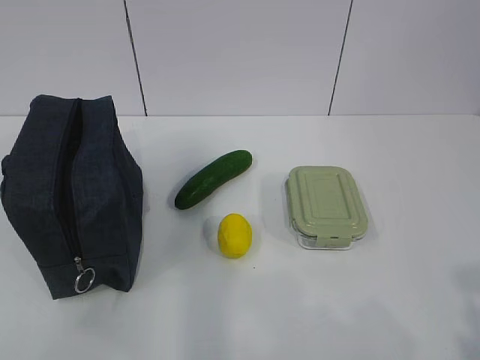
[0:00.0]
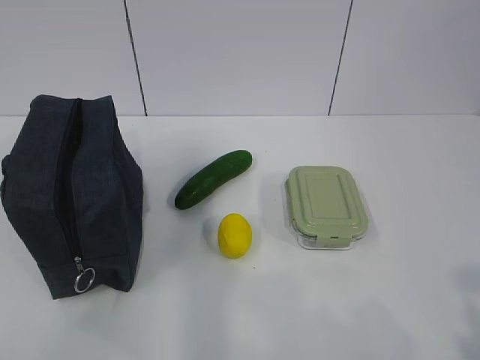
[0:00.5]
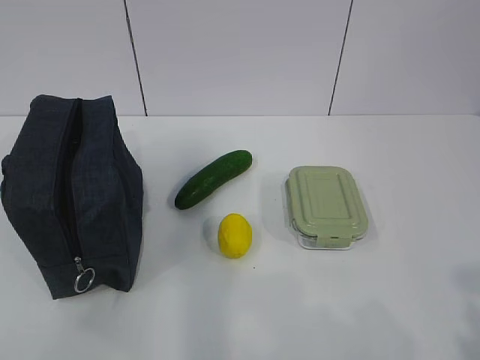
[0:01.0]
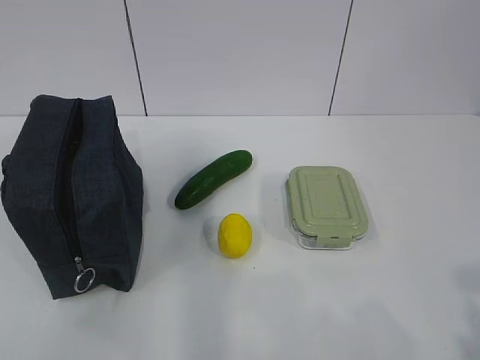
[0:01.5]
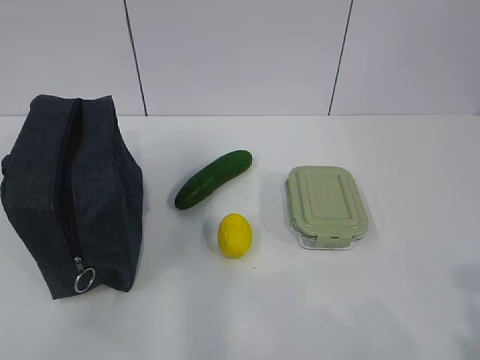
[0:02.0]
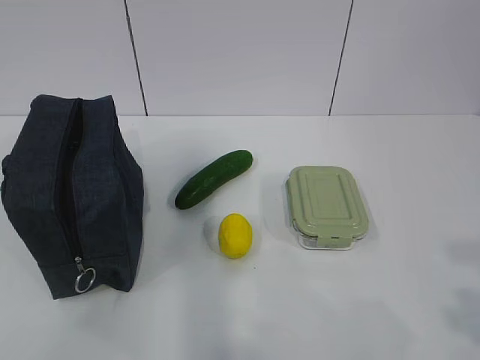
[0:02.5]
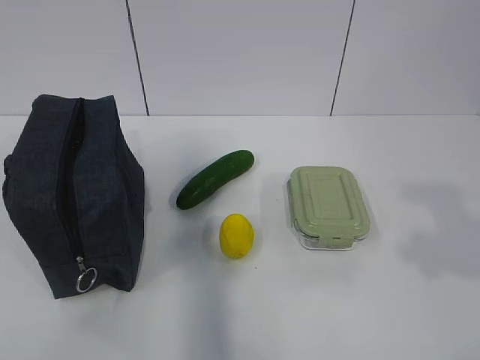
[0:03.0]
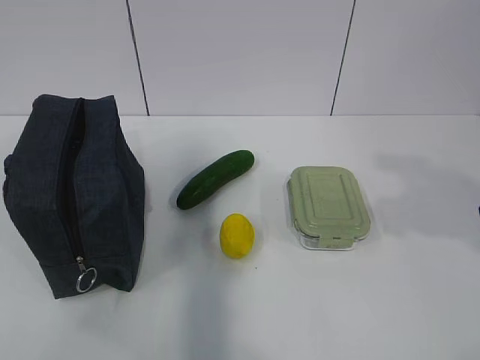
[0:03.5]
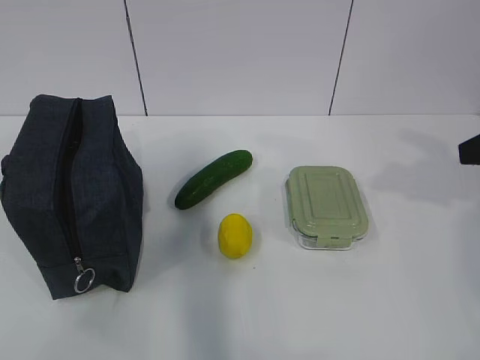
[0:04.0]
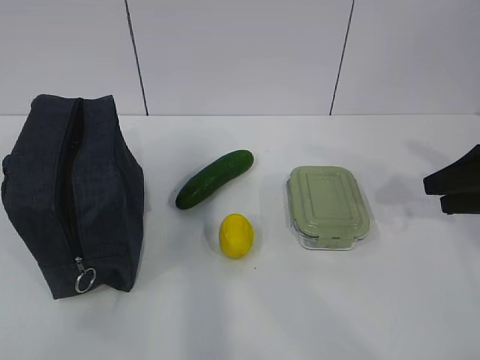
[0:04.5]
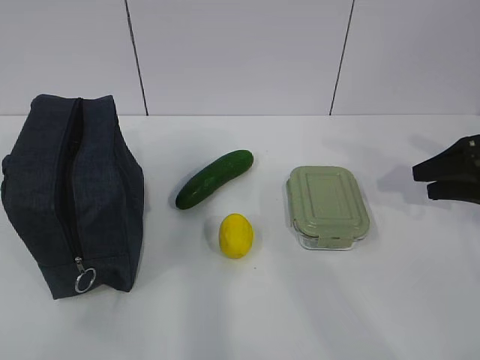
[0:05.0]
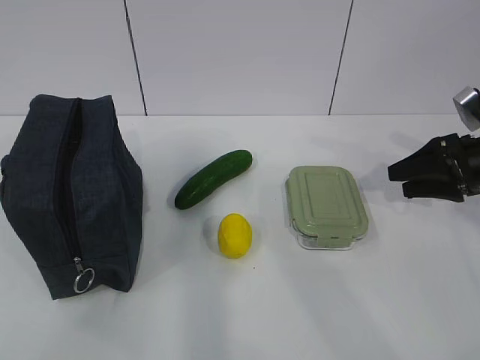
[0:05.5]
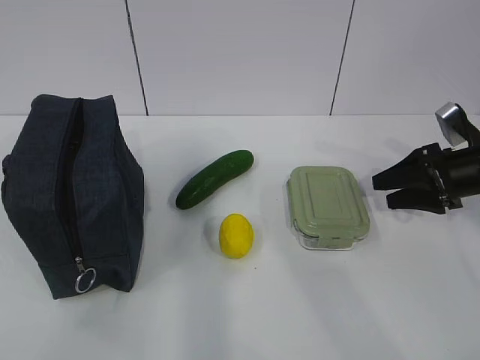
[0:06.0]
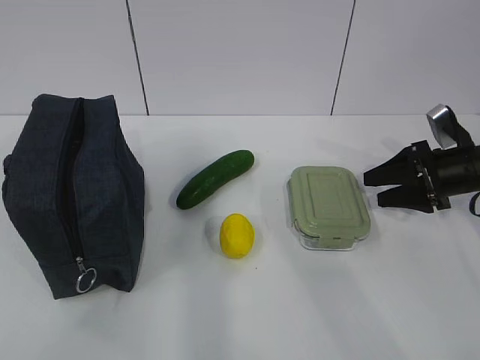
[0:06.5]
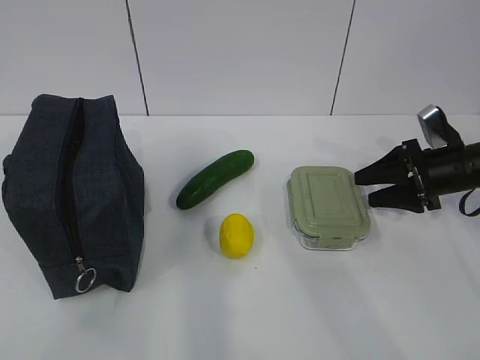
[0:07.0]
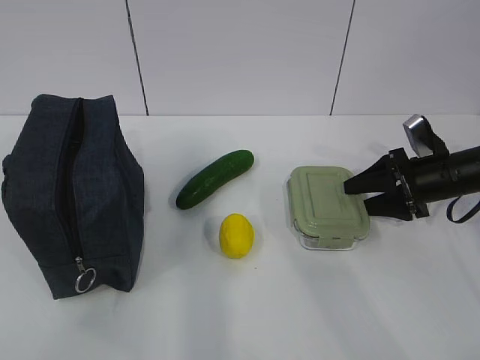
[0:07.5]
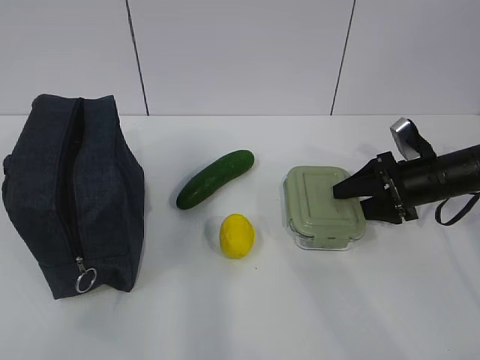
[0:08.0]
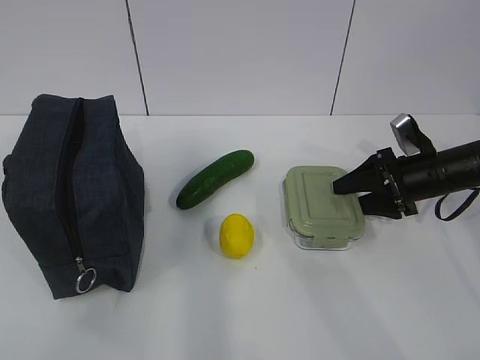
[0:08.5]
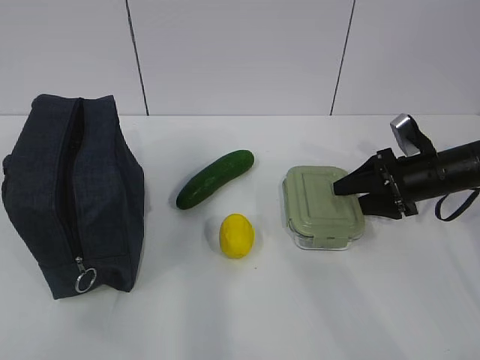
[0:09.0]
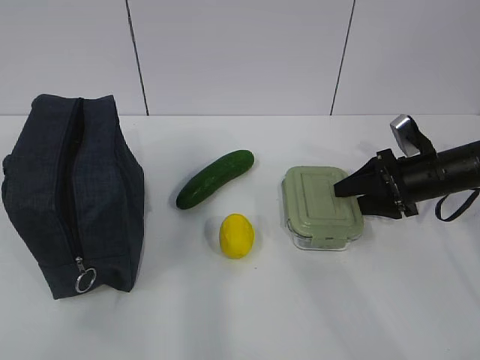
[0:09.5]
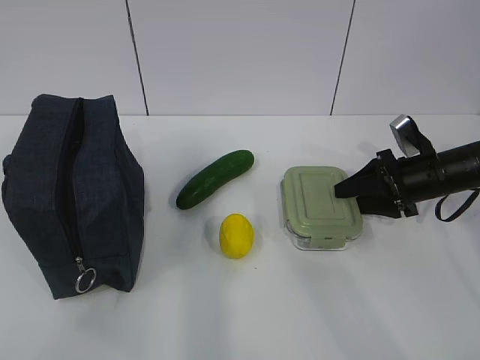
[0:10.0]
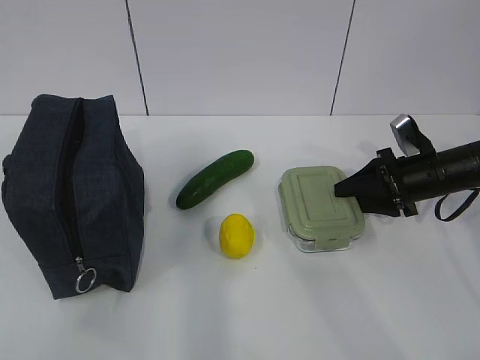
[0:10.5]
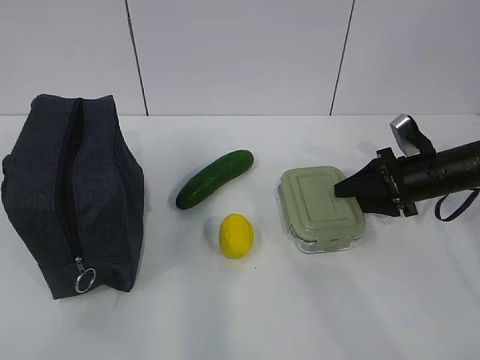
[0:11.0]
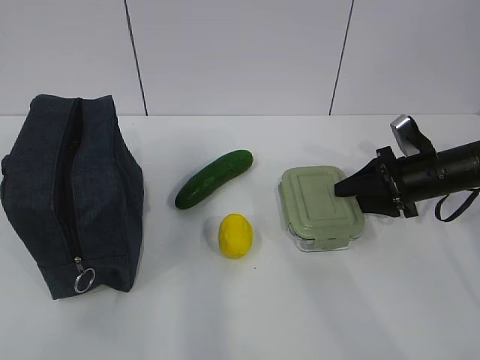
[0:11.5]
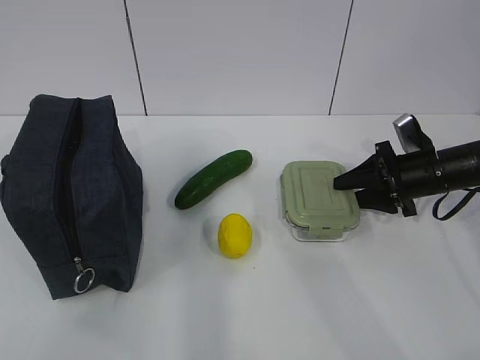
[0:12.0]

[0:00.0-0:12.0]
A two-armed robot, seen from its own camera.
Step, 0:00.0 to 0:10.0: Grab the lunch box with your right hand.
0:02.0 to 0:04.0: The right gripper travels forward by roughly 25 cm.
0:04.0 to 0:06.0: The right gripper is displaced downward and forward by roughly 20 cm.
0:06.0 to 0:08.0: The right gripper shifts by about 5 cm.
0:08.0 to 0:10.0: Both grippers stay put.
0:10.0 to 0:12.0: The grippers move only a little.

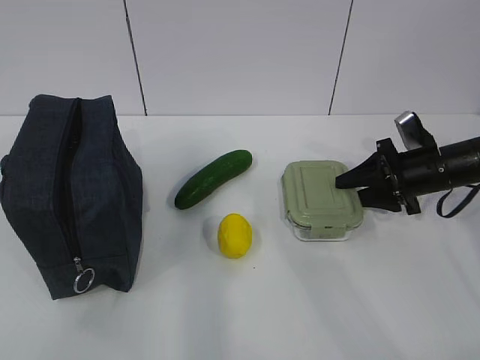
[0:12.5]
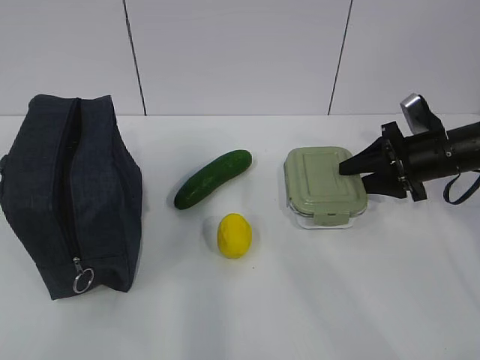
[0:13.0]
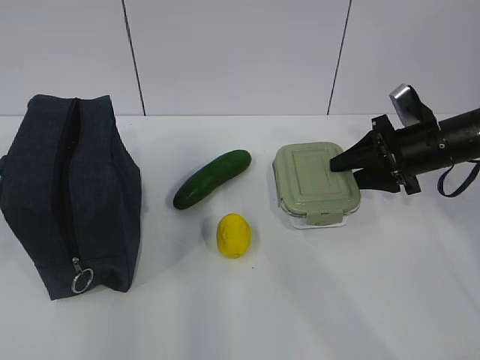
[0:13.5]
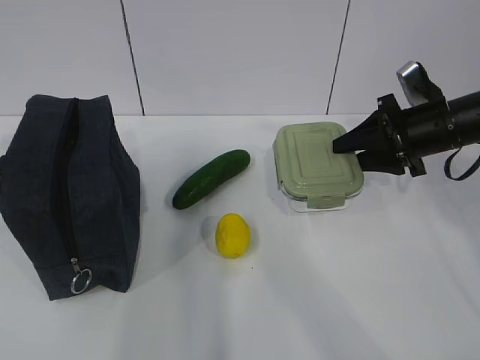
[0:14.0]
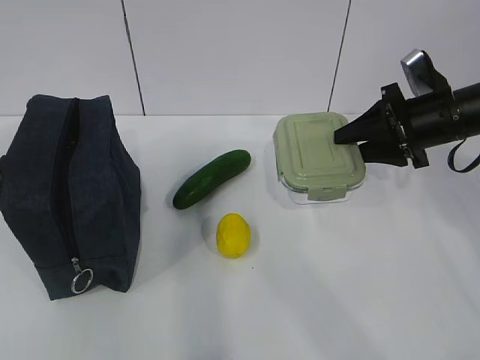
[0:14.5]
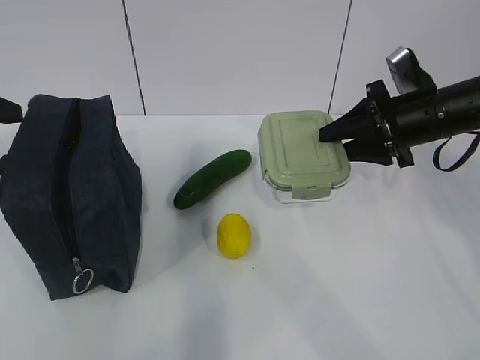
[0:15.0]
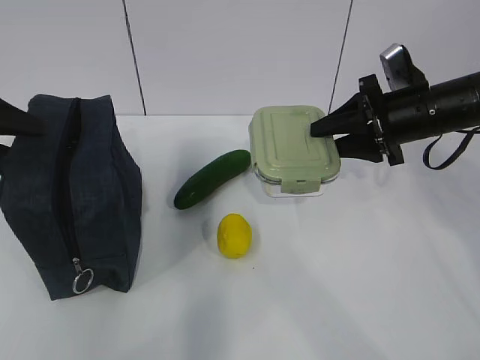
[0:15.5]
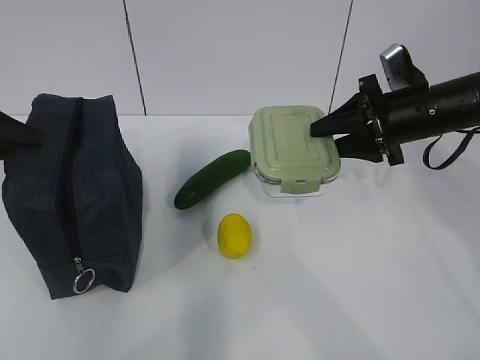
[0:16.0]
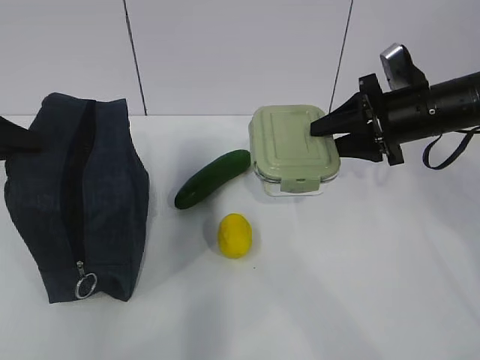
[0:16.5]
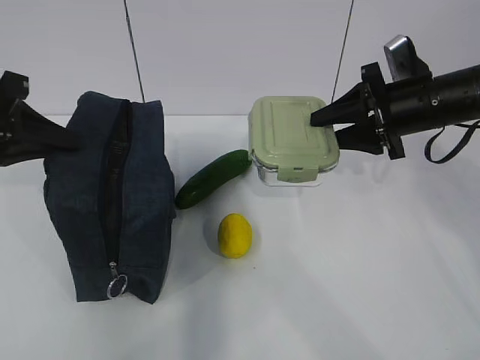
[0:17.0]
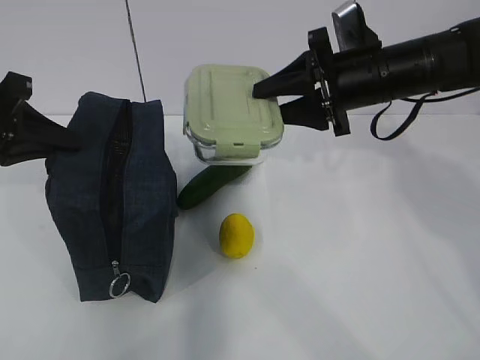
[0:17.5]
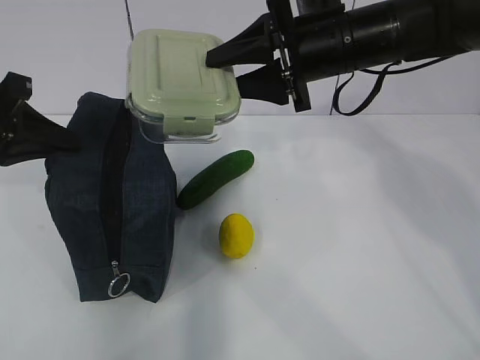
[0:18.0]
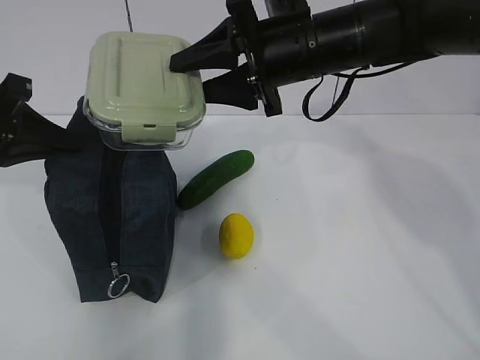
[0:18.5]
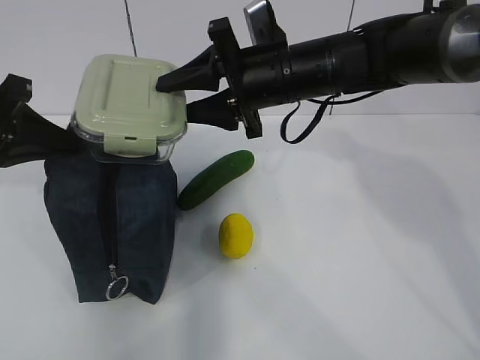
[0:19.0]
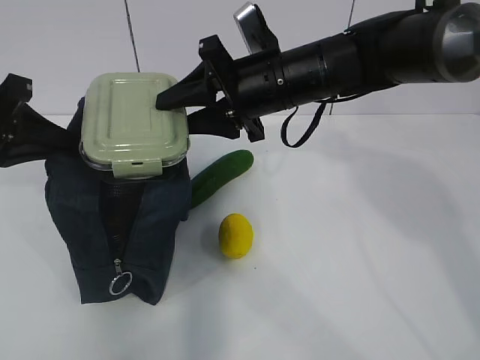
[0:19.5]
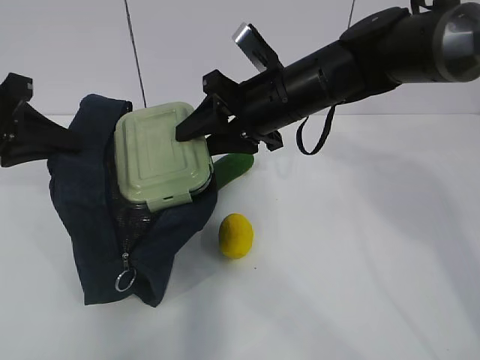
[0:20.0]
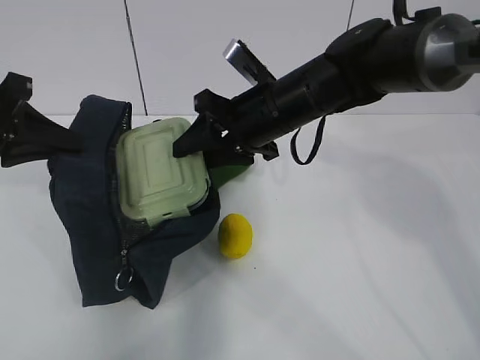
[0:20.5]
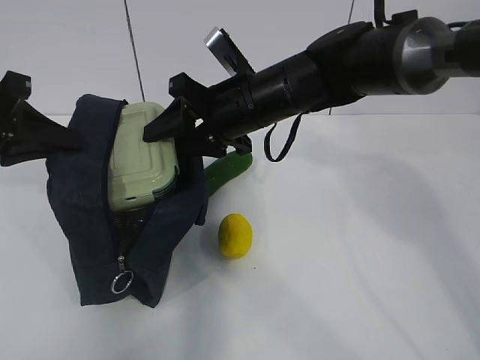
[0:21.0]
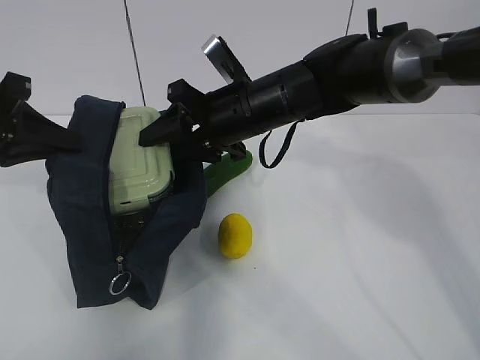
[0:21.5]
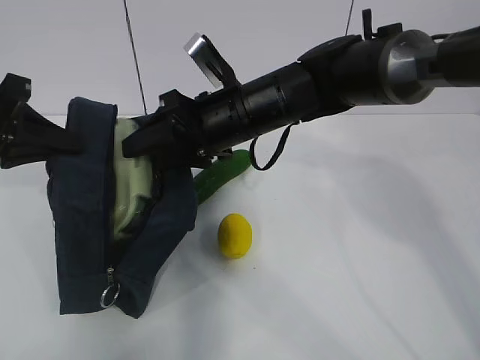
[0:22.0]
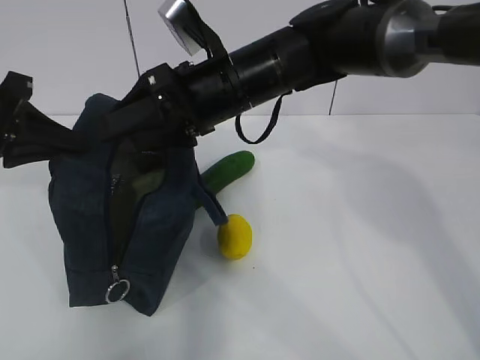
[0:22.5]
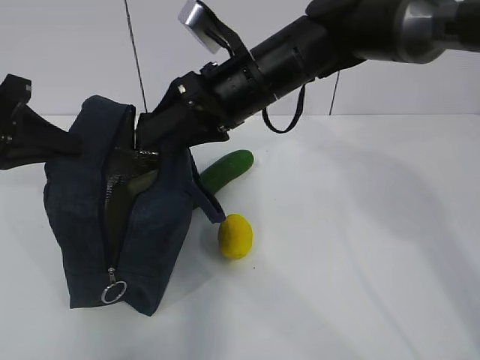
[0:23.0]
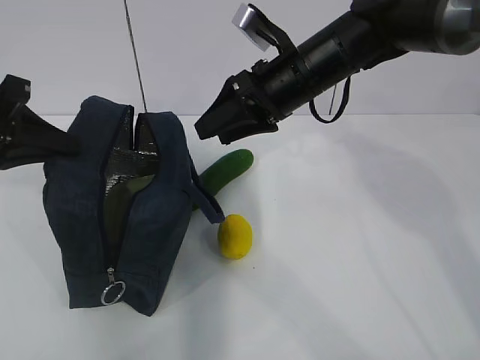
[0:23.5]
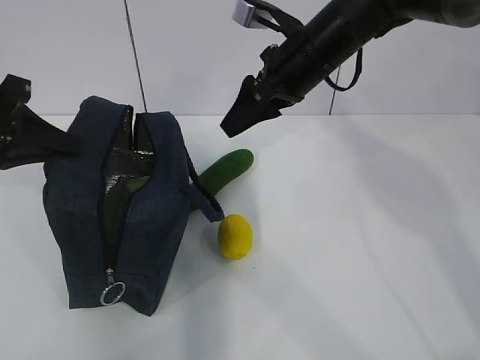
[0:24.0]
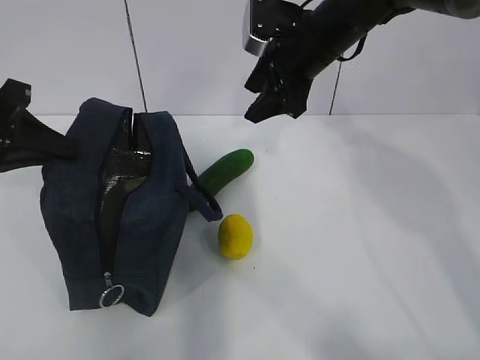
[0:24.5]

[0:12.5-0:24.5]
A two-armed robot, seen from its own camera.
Step, 0:12.5 to 0:16.0: Grab the lunch bag with your left hand.
Step, 0:16.5 to 0:18.5: Place it into the bag with your right hand.
0:12.5 to 0:14.5: The right gripper travels upward by roughly 10 cm; the left gripper goes about 25 cm forward, and opens up.
0:14.5 to 0:16.5: The left gripper travels downward by roughly 5 cm, and closes.
0:16.5 to 0:18.5: The right gripper travels to the left and upward by approximately 20 cm.
0:18.5 to 0:20.5: The right gripper heads downward, covering roughly 5 cm.
0:20.5 to 0:22.5: The right gripper moves some 5 cm.
0:22.5 to 0:24.5: The right gripper goes approximately 15 cm to the right and forward.

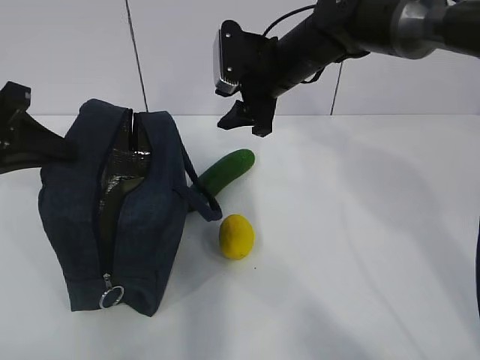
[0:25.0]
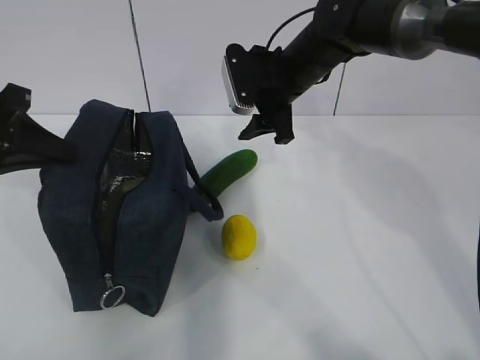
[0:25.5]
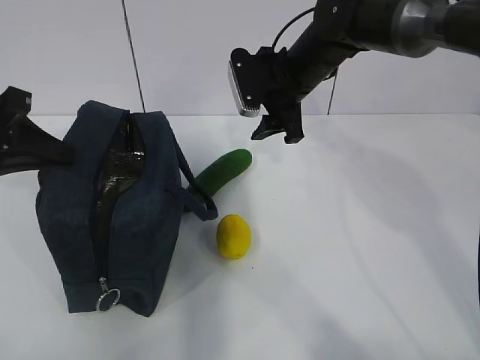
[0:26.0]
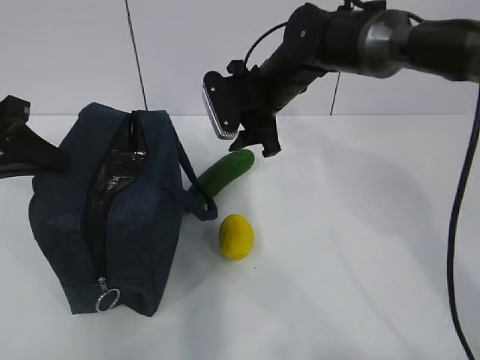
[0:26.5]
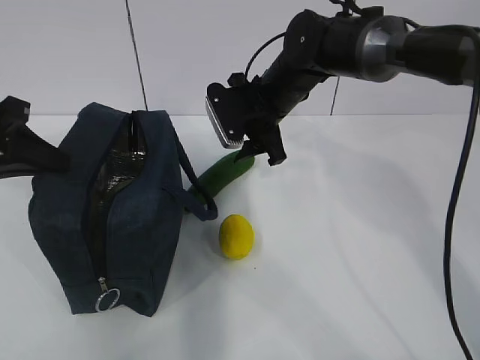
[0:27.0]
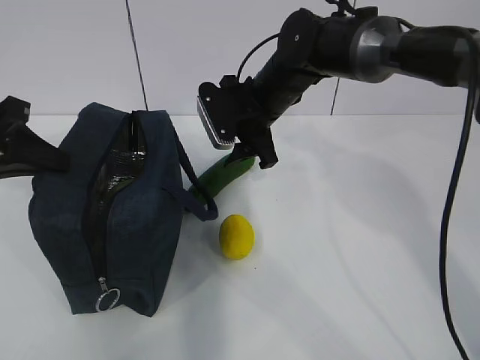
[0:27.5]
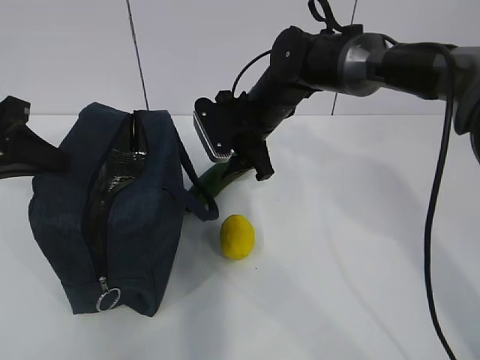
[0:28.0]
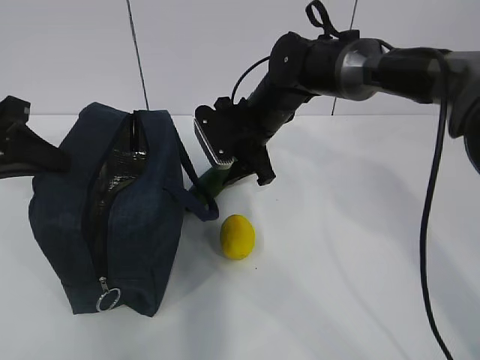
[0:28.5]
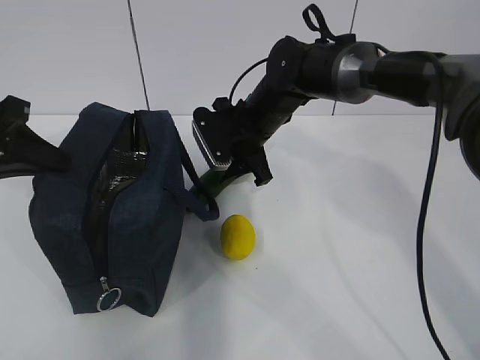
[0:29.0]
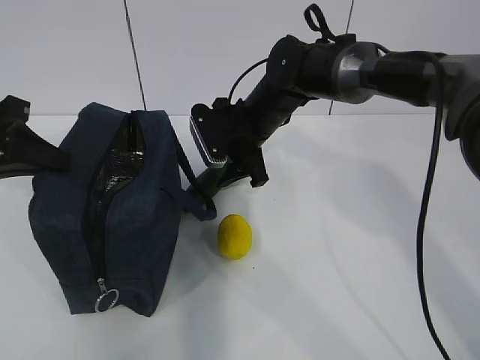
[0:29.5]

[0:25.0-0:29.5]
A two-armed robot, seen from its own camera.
Step, 0:25.0 to 0:27.5: Grab the cucumber with your right hand.
0:27.0 to 0:29.5: The grippers move only a little.
